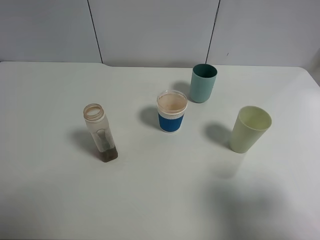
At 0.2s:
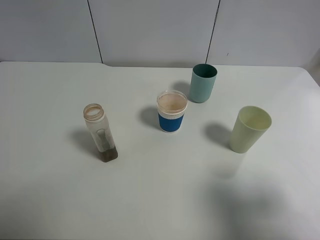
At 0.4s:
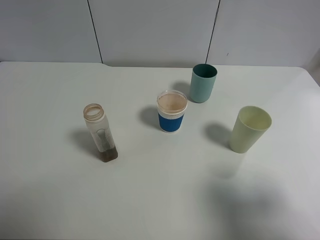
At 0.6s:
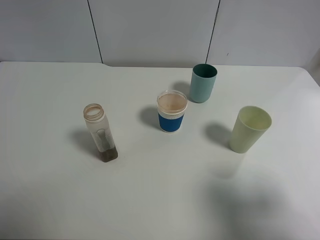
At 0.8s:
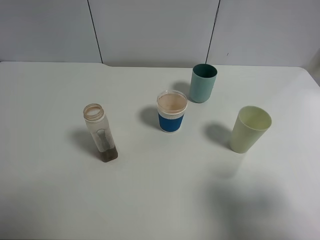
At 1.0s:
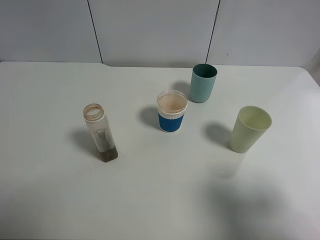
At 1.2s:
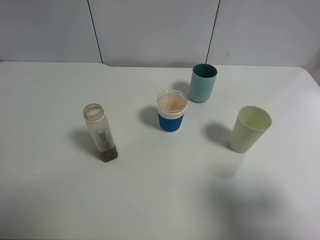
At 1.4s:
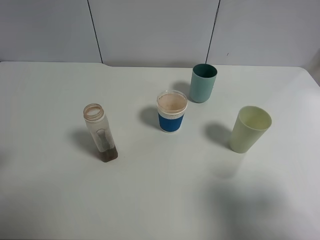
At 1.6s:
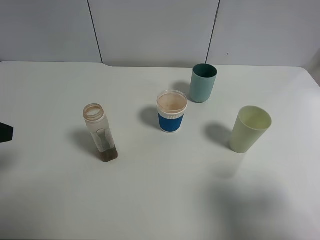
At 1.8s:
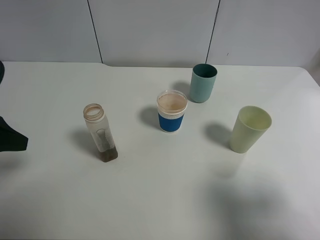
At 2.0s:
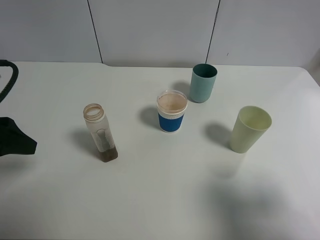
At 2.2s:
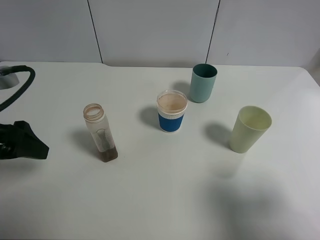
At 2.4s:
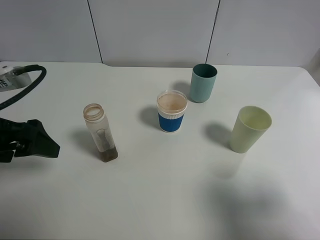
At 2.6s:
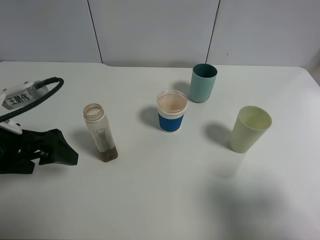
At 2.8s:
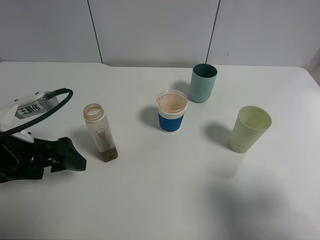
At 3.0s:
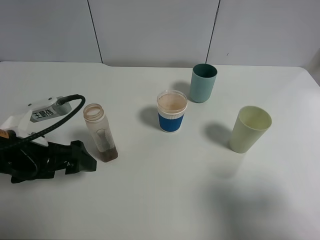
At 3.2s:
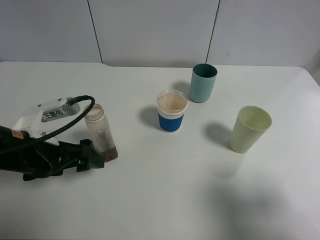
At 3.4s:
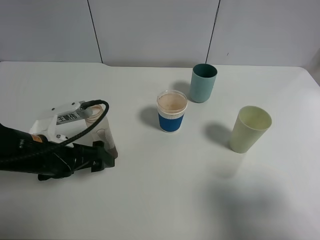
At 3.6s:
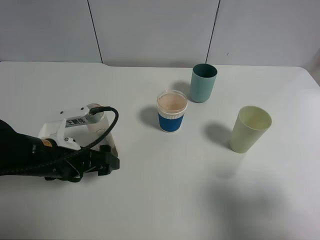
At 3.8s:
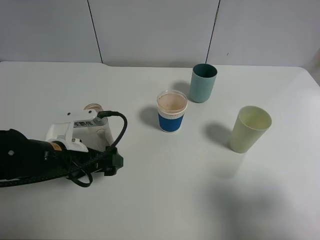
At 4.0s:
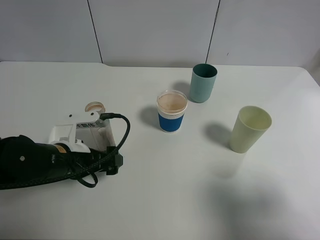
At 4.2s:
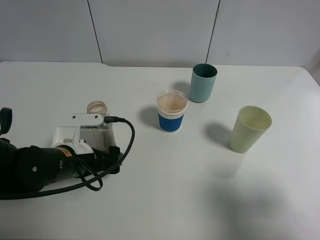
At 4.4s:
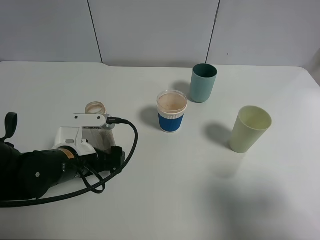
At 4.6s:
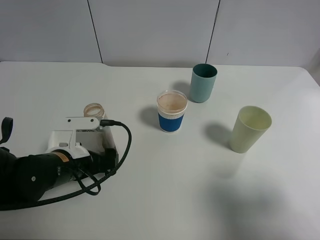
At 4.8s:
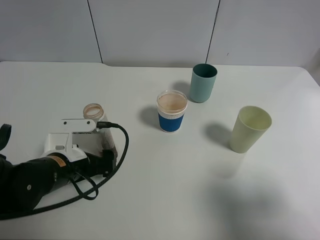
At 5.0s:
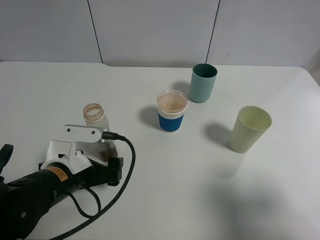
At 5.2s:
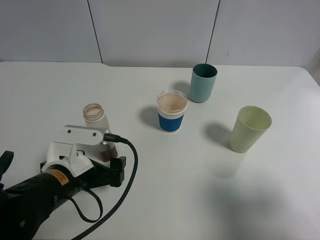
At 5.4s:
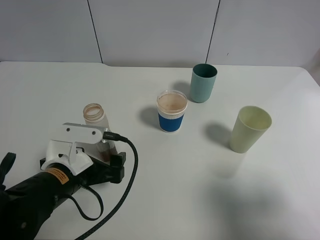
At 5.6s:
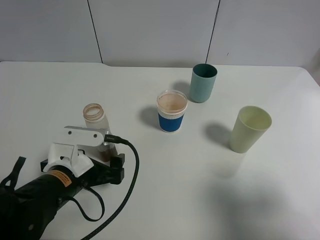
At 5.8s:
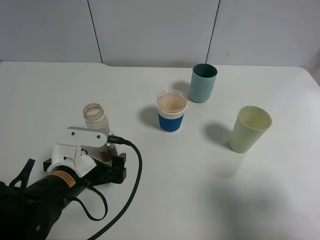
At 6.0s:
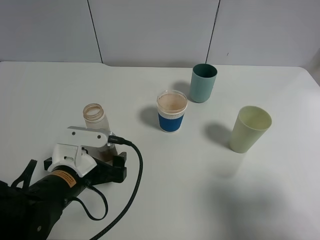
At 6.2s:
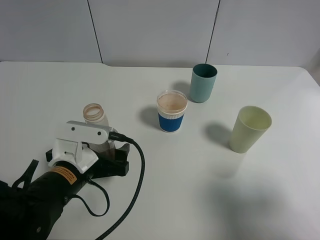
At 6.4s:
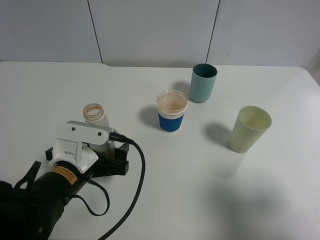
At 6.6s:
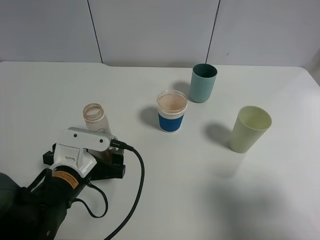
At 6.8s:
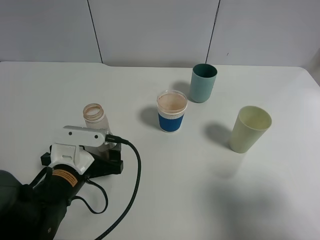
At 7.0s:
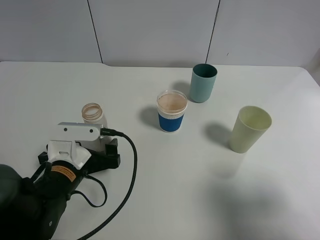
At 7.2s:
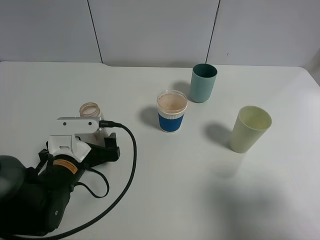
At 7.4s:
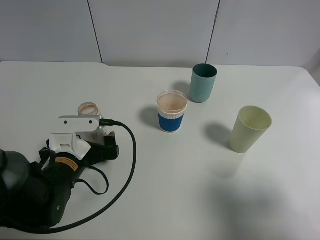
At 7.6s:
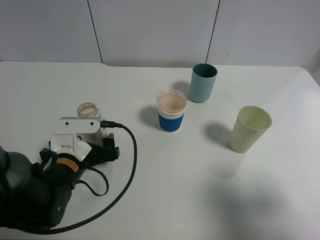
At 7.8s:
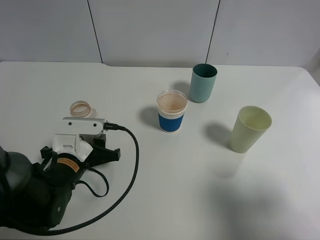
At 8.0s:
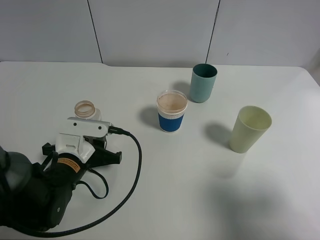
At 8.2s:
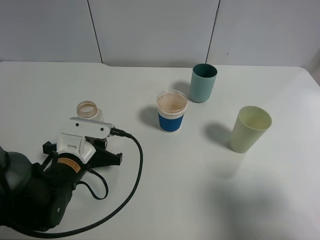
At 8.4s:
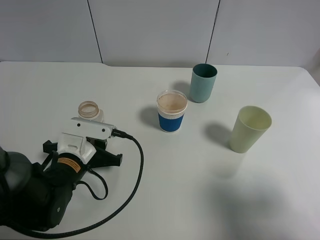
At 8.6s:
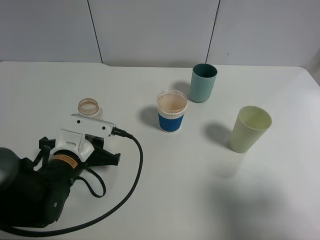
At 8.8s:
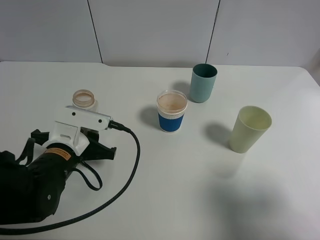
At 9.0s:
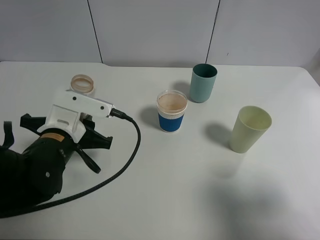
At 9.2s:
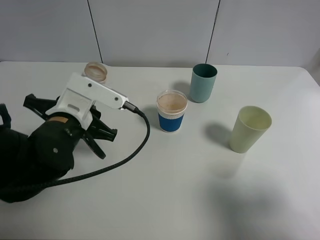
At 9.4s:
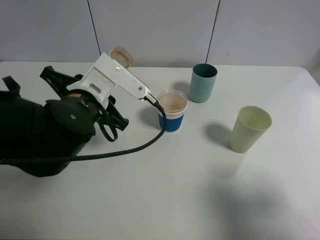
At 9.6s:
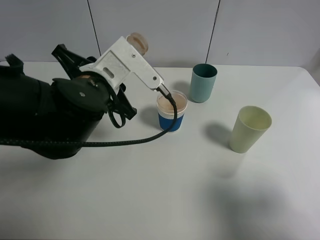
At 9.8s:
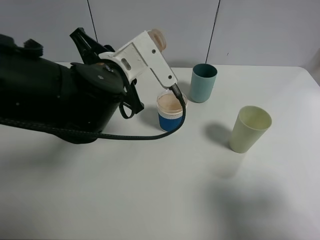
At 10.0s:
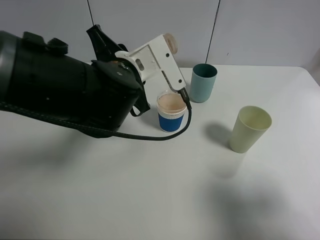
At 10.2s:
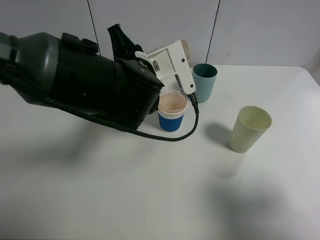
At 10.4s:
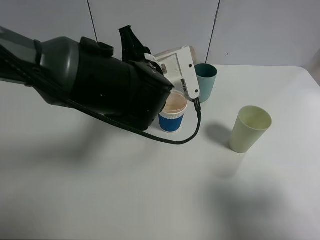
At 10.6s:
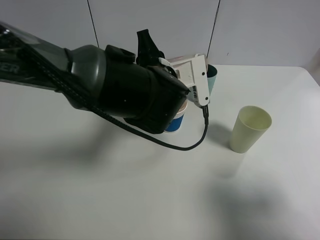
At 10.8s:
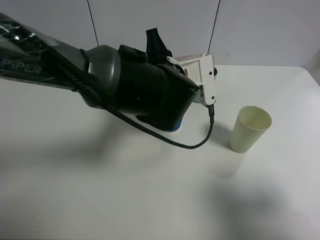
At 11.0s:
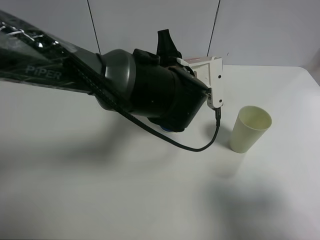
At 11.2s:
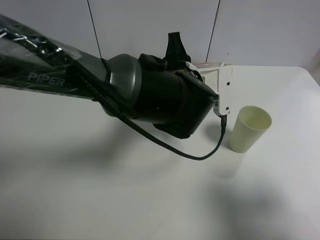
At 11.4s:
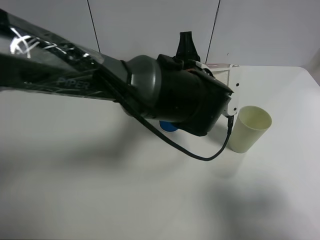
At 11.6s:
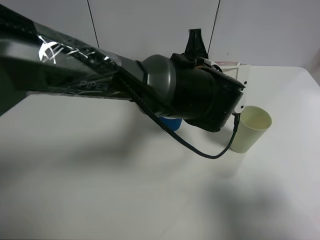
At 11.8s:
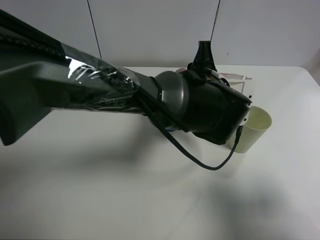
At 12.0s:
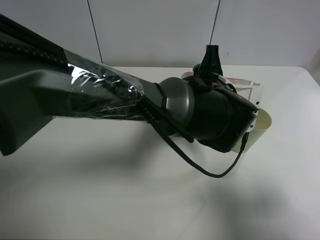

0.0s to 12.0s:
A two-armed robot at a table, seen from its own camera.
Task of the whole recording: use a clamp to hold the bottle of the drink, pour the beverage into a random cup, then clamp the cup containing the drink and pour the drink into another random cup.
Step, 0.0s to 8.8s: Pick up the drink bottle with left gripper.
1.6s to 3.0s: The left gripper is displaced downward and to the right by roughly 15 cm.
3.0s to 4.4s: The left gripper moves downward and to the right, about 10 cm.
4.4s to 6.0s: The grippers move only a little.
6.0s to 7.6s: The grippers make only small movements.
7.6s to 9.0s: The left gripper heads upward, covering roughly 5 cm, and closes up.
9.0s to 10.4s: The left gripper shifts about 15 cm to the right, forward and upward.
10.4s to 12.0s: The left gripper shifts some 10 cm to the right.

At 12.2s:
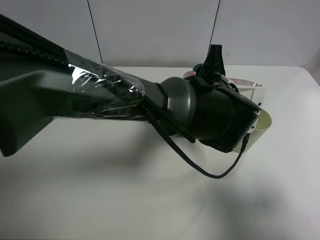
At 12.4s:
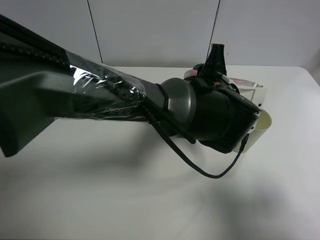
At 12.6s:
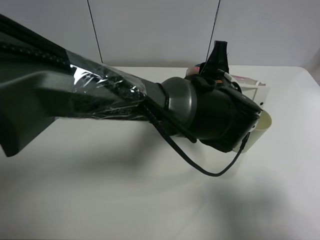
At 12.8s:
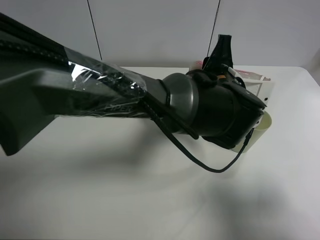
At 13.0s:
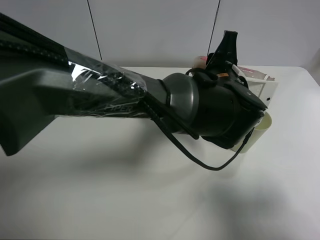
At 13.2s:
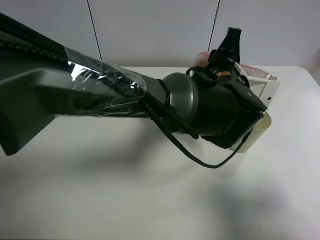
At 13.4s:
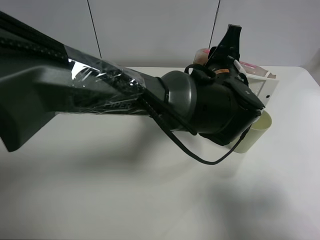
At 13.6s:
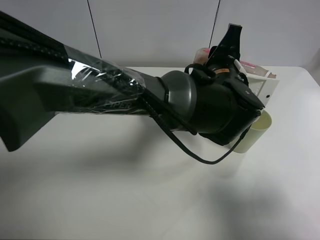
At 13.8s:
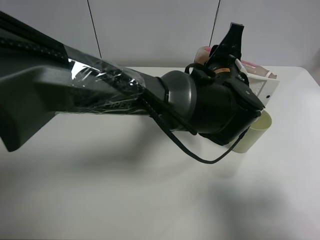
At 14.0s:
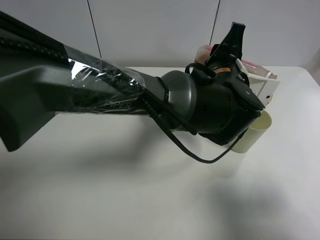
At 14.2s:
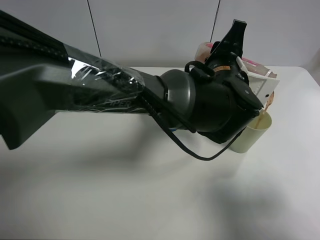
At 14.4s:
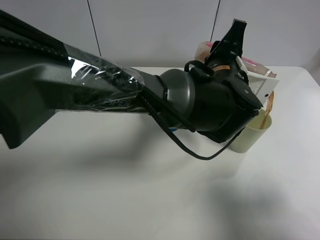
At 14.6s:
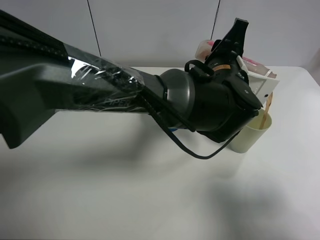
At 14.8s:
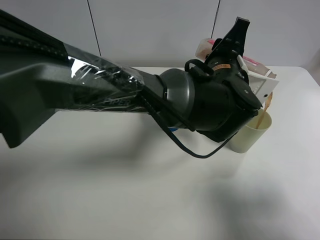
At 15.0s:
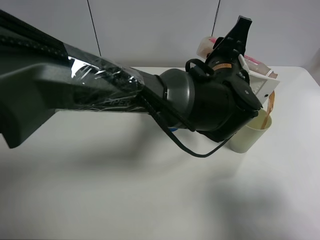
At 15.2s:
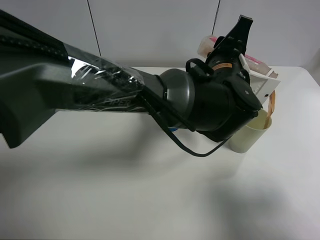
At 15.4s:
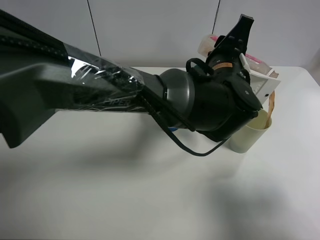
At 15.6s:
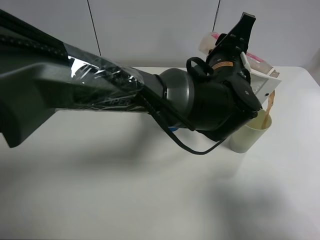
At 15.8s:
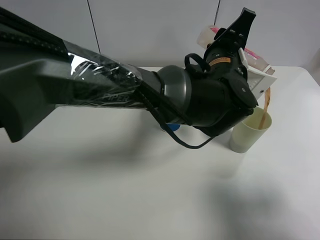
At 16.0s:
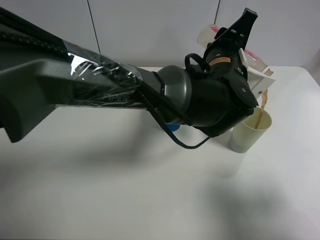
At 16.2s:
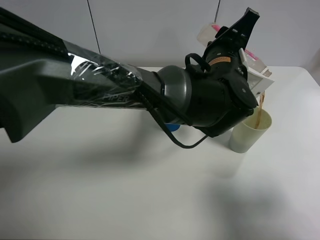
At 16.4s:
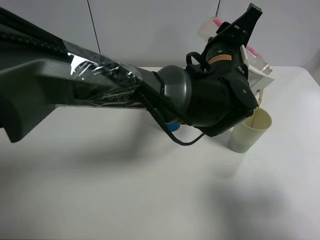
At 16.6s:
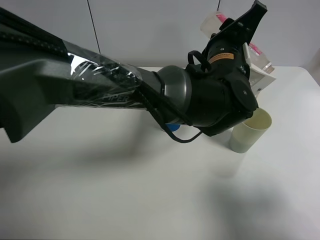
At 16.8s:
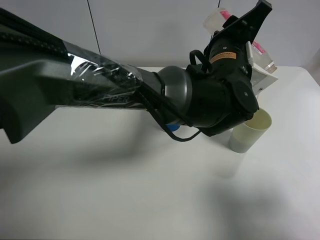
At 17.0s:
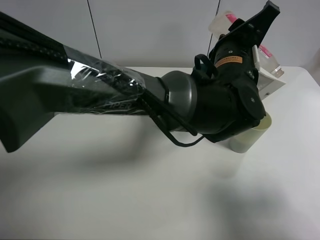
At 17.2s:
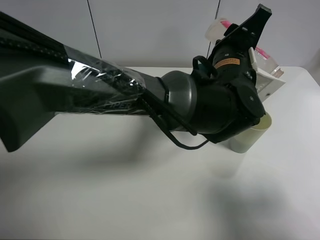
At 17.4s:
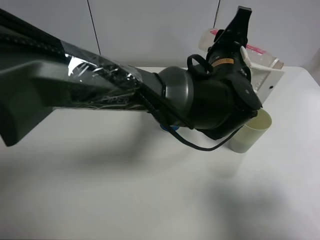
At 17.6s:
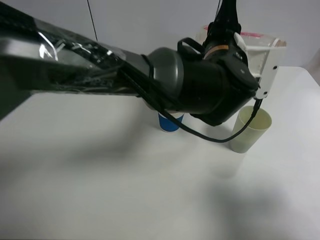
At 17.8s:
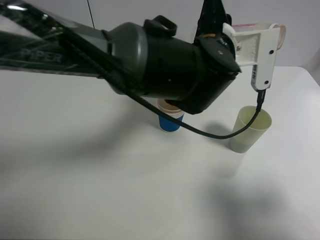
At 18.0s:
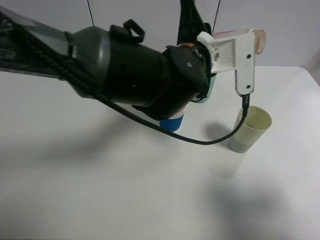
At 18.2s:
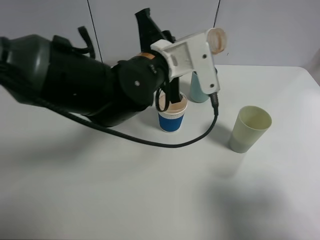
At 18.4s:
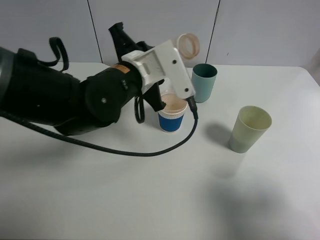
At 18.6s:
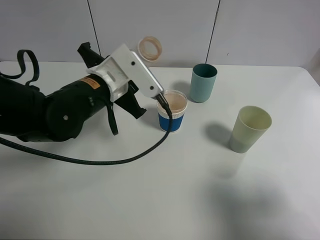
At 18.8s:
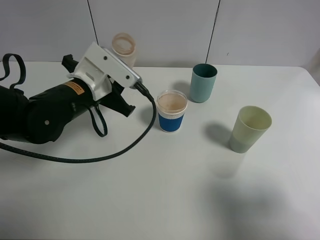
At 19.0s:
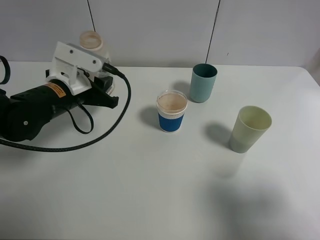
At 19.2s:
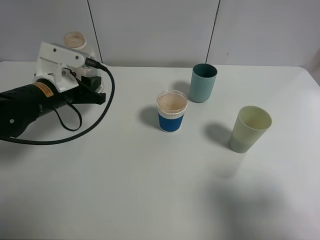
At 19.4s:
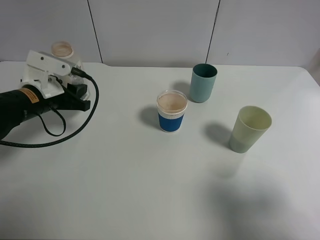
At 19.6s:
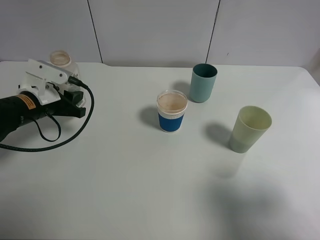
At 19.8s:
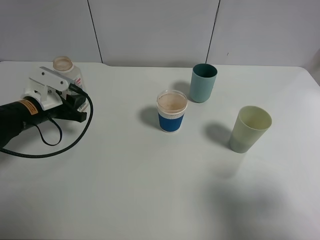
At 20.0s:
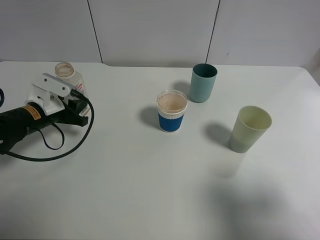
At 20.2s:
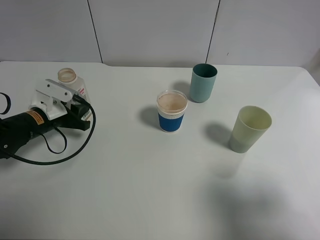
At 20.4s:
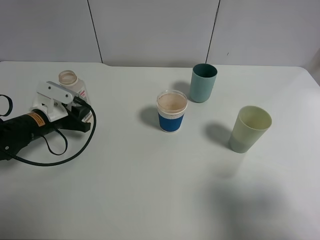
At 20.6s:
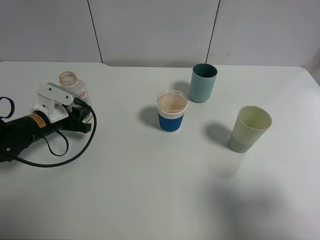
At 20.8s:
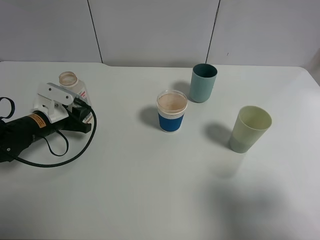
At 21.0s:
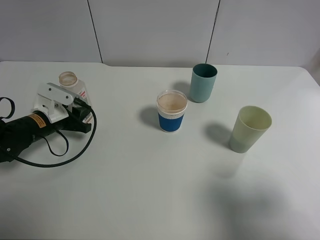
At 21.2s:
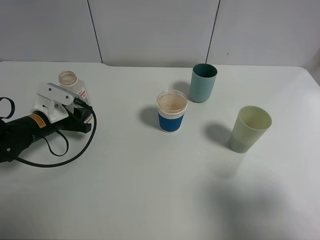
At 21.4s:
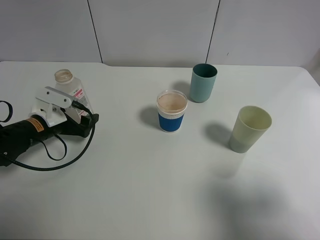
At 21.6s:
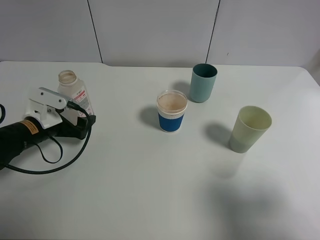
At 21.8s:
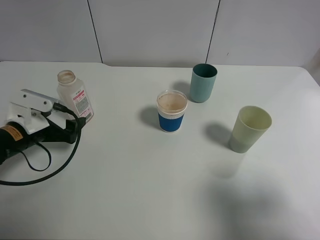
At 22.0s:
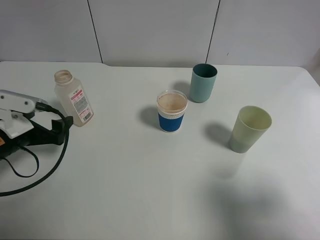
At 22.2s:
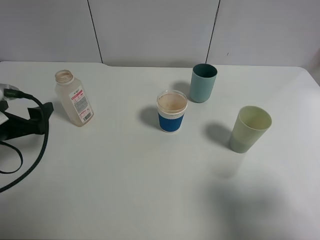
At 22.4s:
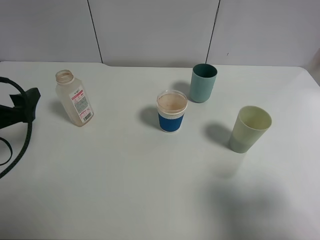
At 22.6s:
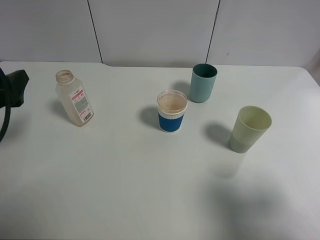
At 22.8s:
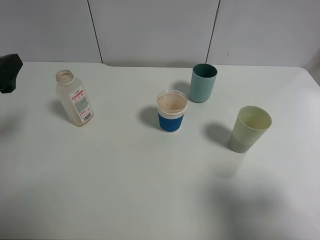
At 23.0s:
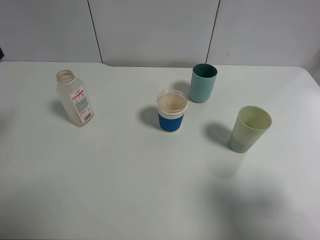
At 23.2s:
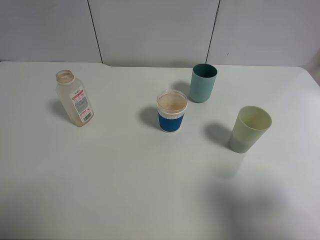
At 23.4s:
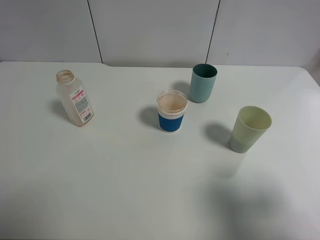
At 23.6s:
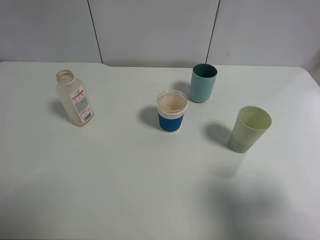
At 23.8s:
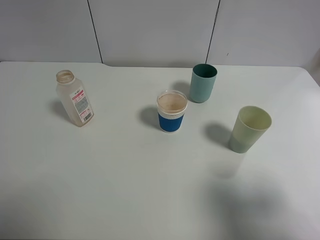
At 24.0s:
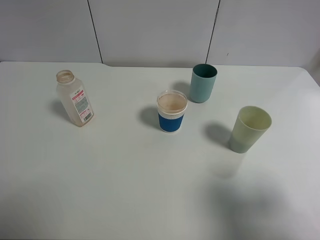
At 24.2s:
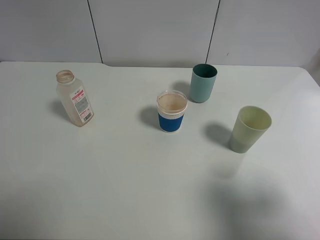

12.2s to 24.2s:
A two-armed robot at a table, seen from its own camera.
Task of the whole recording: use a clamp to hold the bottle of the drink, pour the beverage into a random cup, then clamp the cup containing the drink and pour the drink into another random cup.
Step, 12.2s to 17.6s: Pour the drink into the green plastic cup with left gripper.
Step, 17.8s to 21.2s: Place the drink bottle on the table with left gripper.
12.2s to 13.8s: The grippers make only small movements.
13.8s to 15.2s: There are only small adjustments of the grippers.
15.2s to 16.6s: There are only small adjustments of the grippers.
16.6s to 18.2s: The left gripper moves to the left, roughly 15 cm.
18.2s to 19.8s: The left gripper moves to the left and downward, about 25 cm.
19.8s to 21.2s: The grippers make only small movements.
21.2s to 22.6s: The left gripper shifts approximately 20 cm upward and backward, and opens up.
22.6s to 24.2s: The left gripper moves backward and upward, approximately 20 cm.
